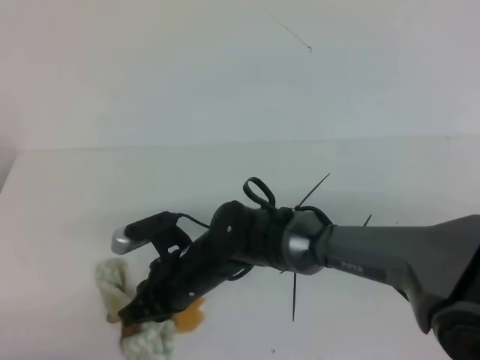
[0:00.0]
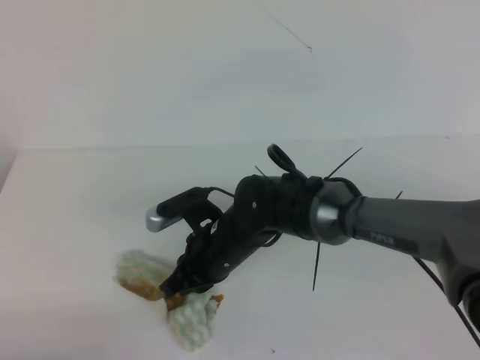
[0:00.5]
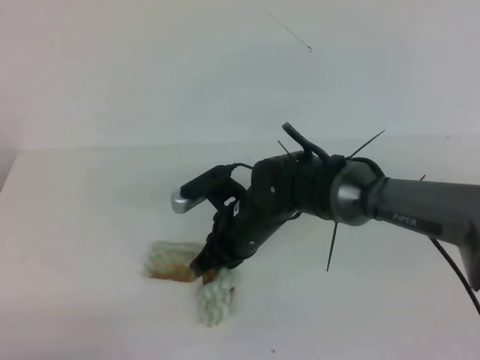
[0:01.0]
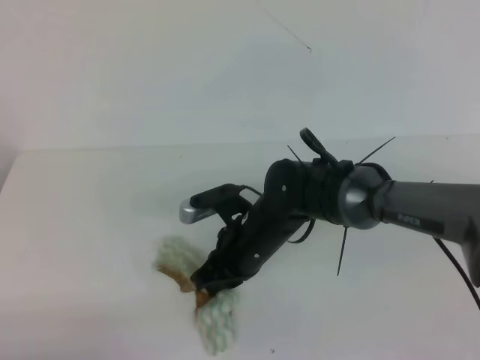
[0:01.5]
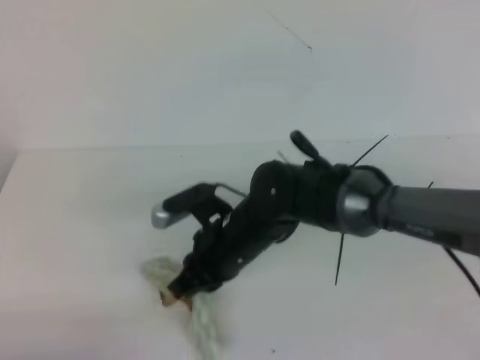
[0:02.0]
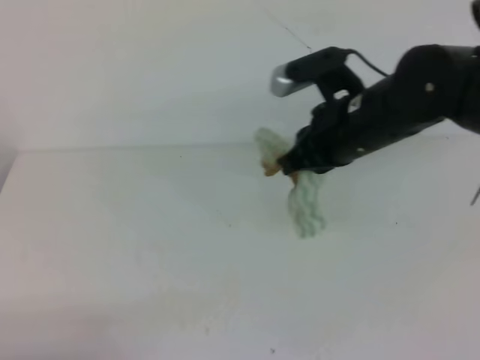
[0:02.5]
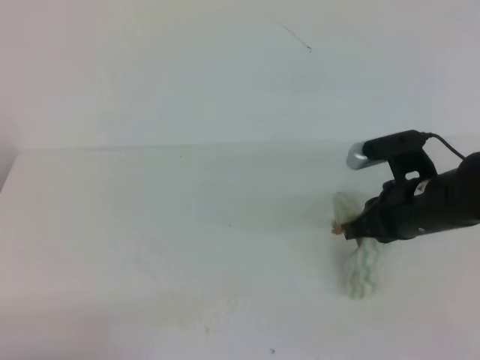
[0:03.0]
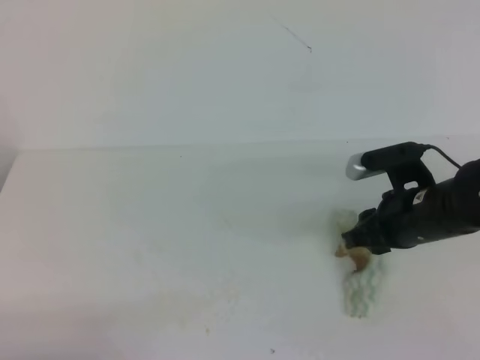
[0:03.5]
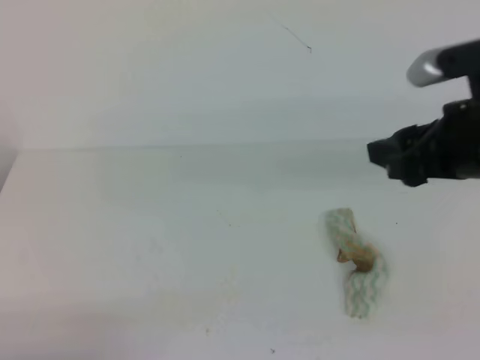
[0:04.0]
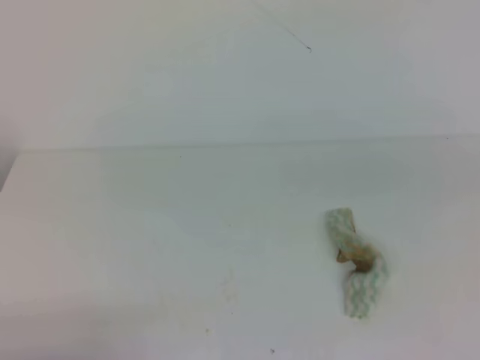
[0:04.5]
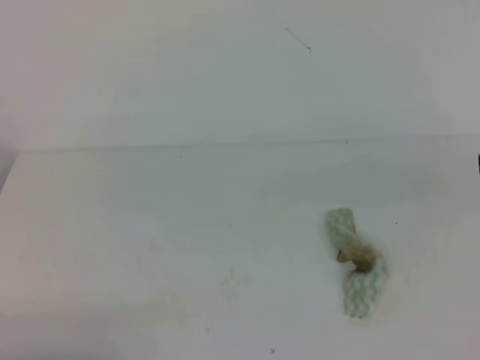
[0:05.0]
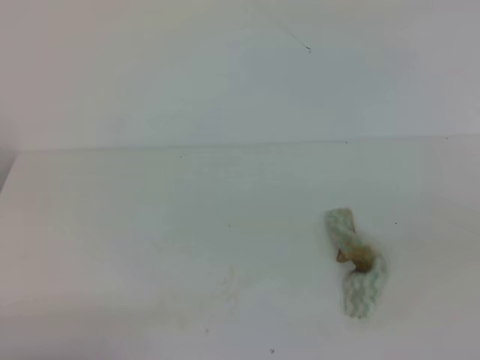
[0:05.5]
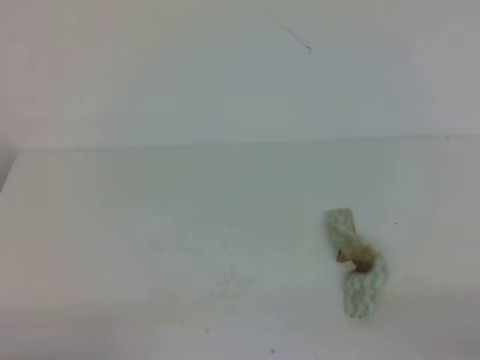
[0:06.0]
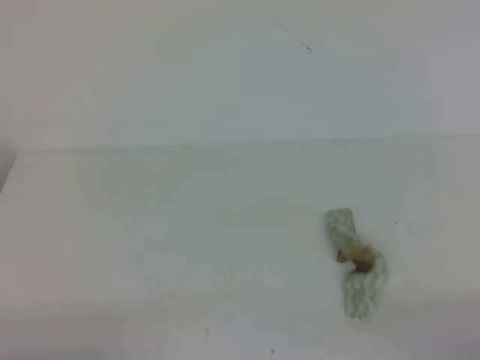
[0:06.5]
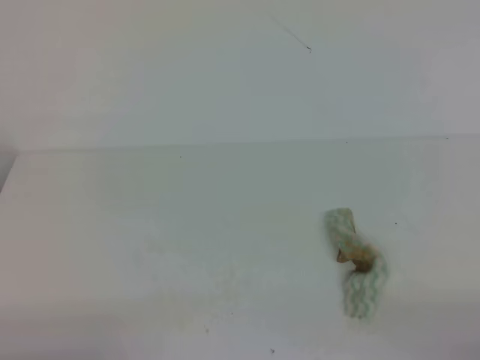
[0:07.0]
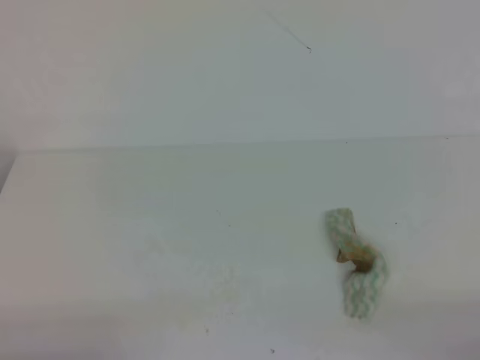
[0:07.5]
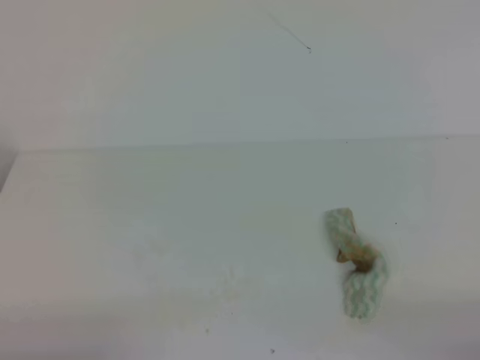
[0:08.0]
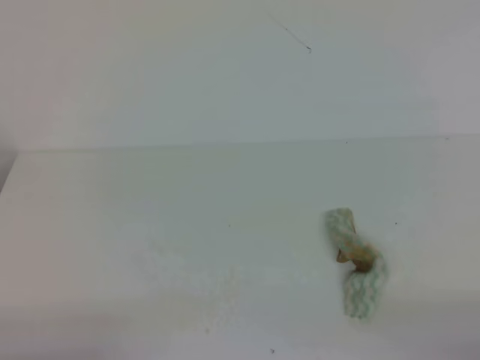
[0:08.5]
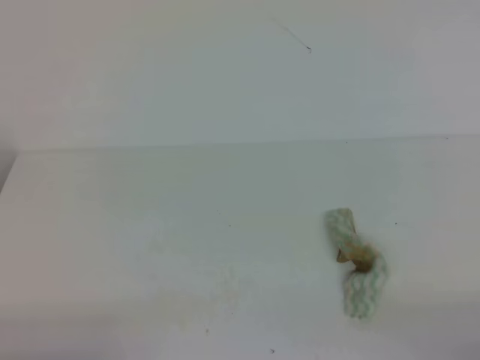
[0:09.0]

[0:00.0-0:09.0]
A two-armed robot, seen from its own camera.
0:00.0 to 0:02.0: The right gripper moves to the right, approximately 5 cm.
0:02.0 to 0:04.5: The right gripper heads to the right, upward and backward, covering approximately 35 cm, and opens and closes again.
0:04.5 to 0:07.0: The right gripper travels downward, backward and to the right by roughly 25 cm.
0:07.0 to 0:09.0: Neither gripper changes place.
